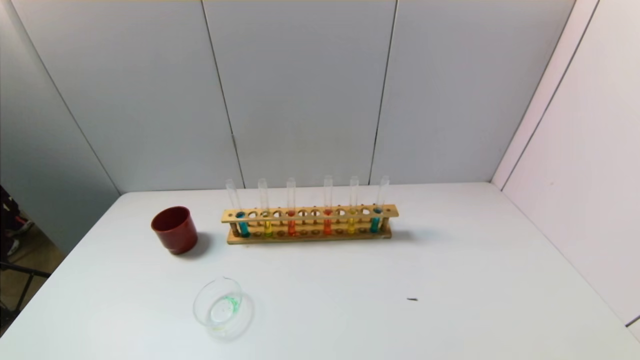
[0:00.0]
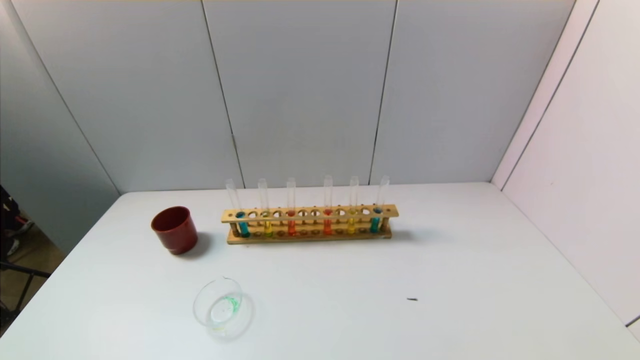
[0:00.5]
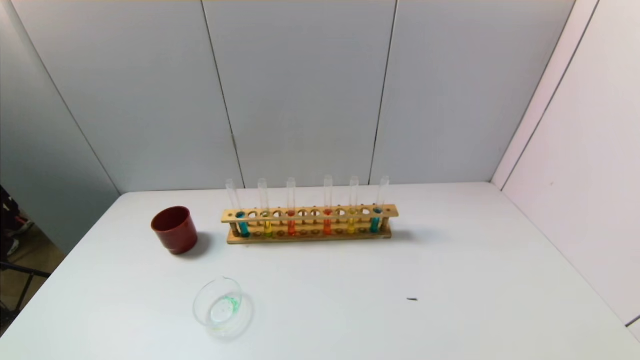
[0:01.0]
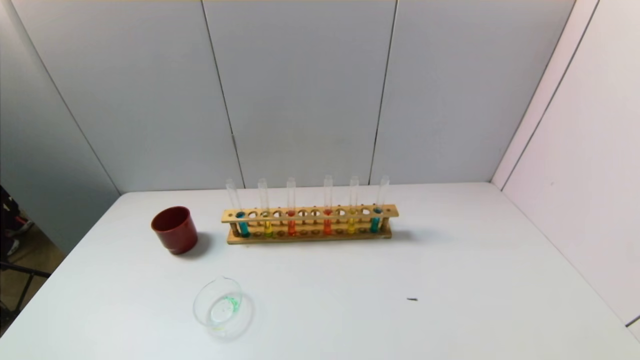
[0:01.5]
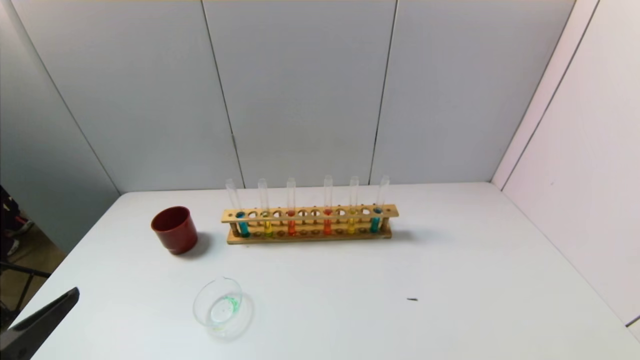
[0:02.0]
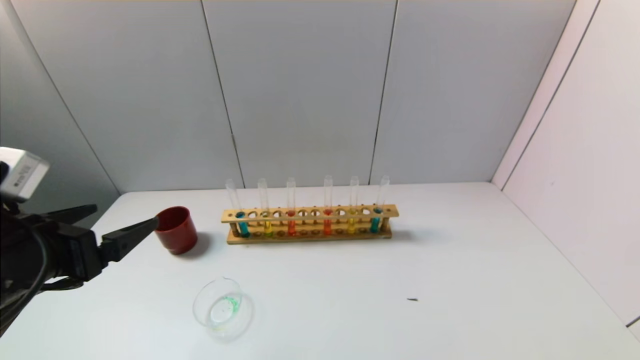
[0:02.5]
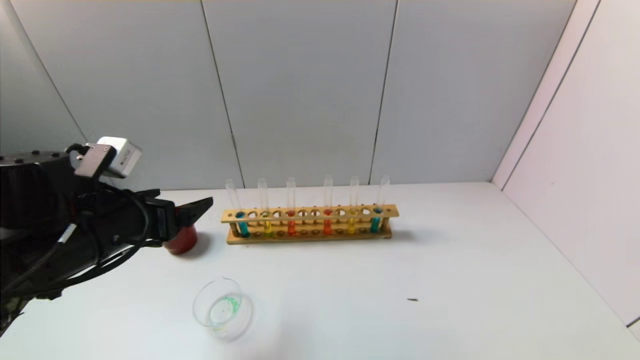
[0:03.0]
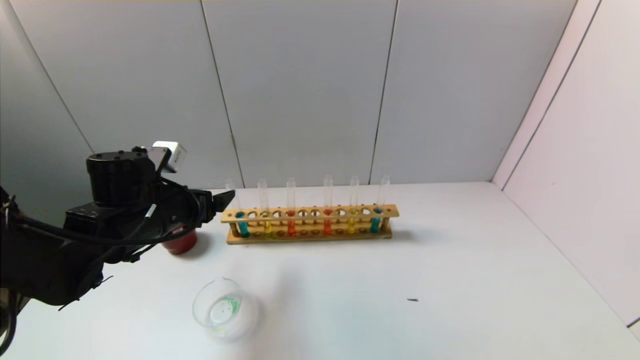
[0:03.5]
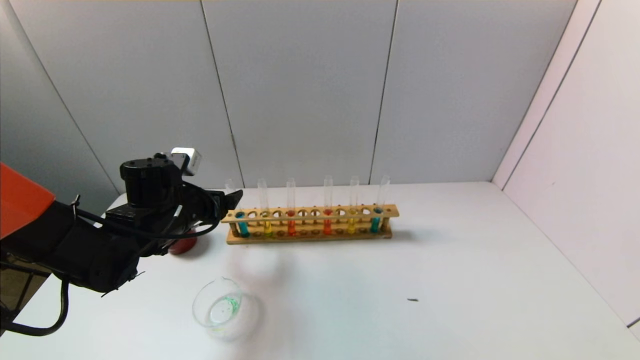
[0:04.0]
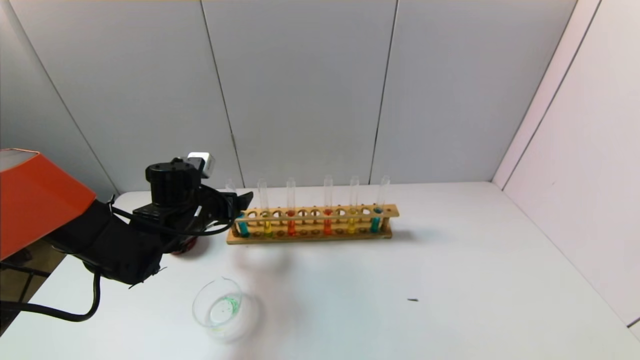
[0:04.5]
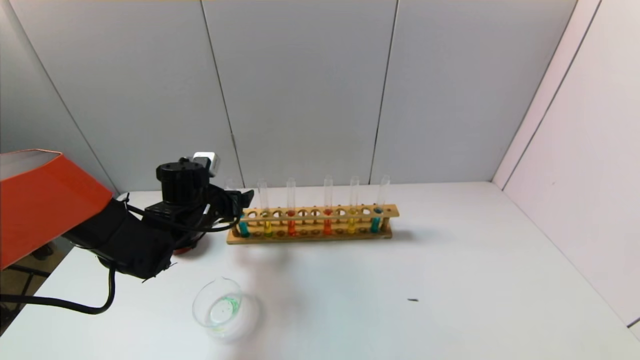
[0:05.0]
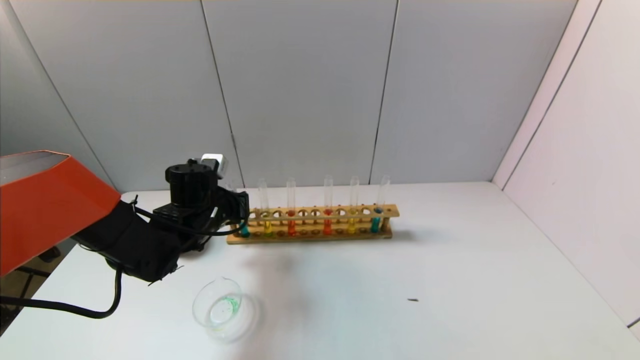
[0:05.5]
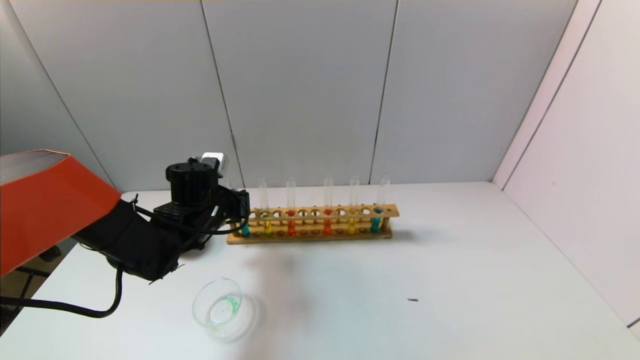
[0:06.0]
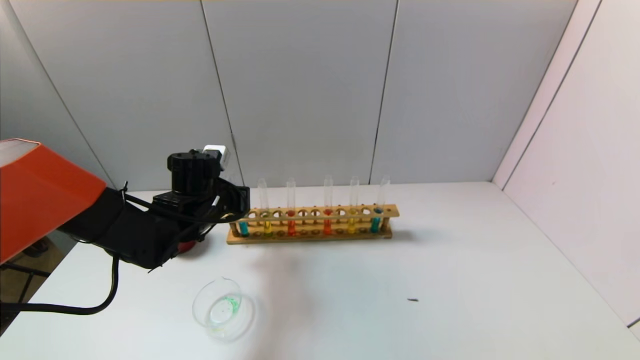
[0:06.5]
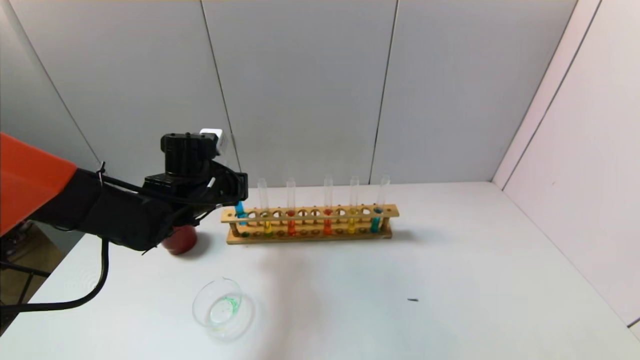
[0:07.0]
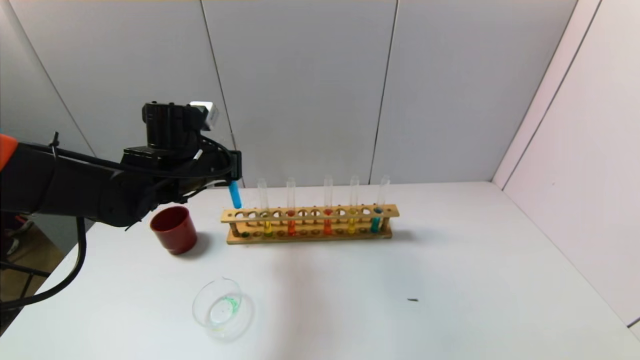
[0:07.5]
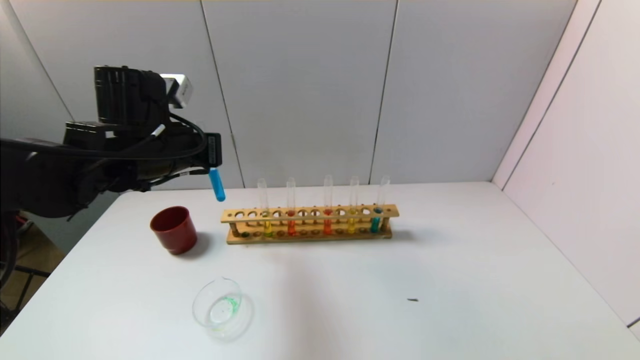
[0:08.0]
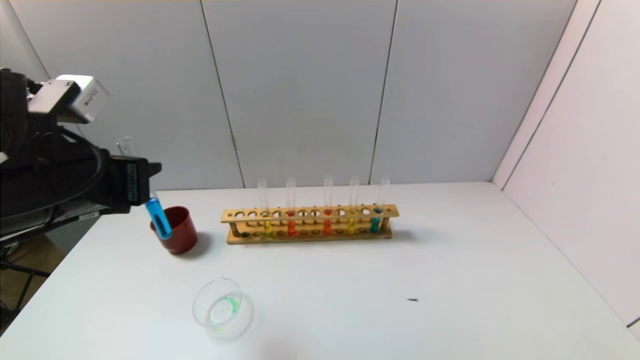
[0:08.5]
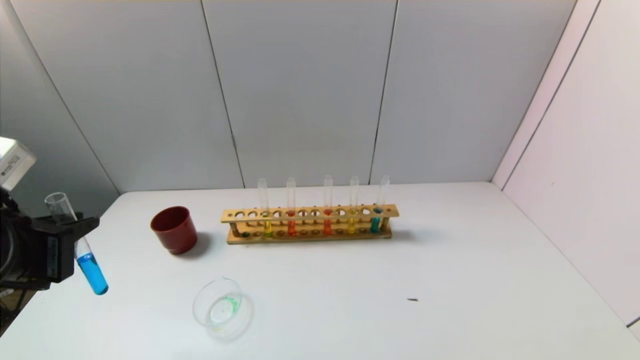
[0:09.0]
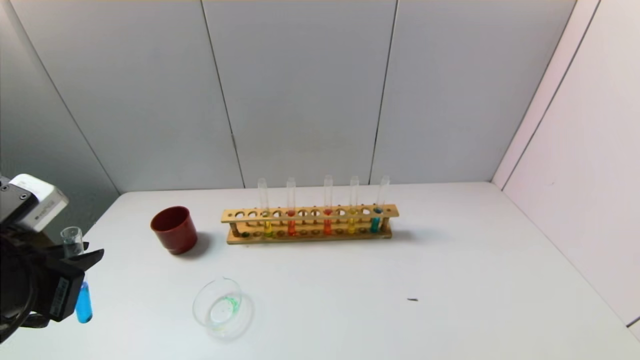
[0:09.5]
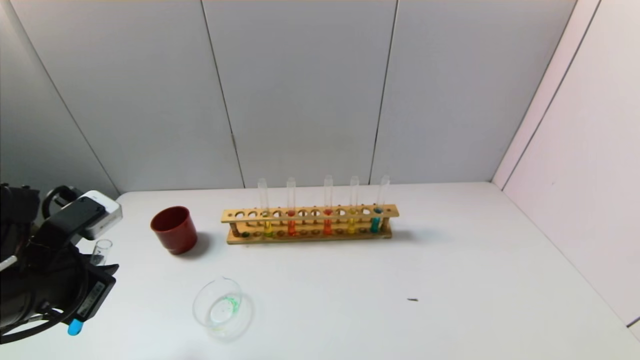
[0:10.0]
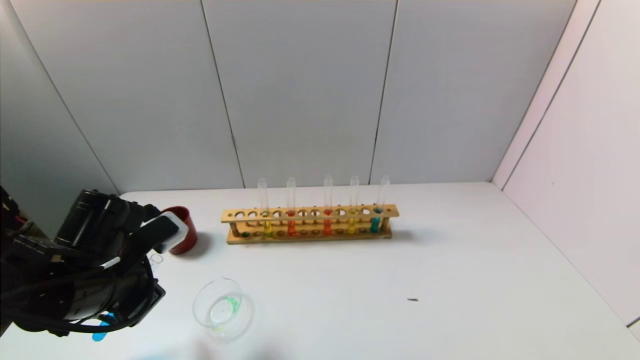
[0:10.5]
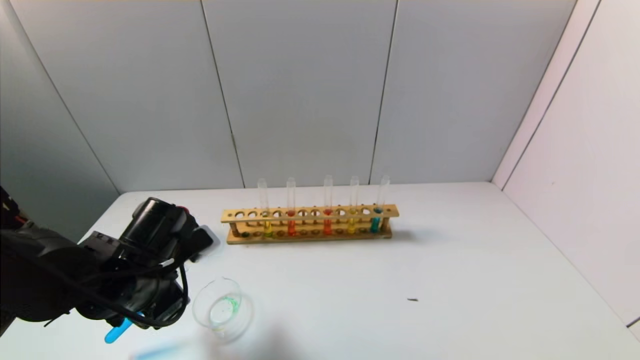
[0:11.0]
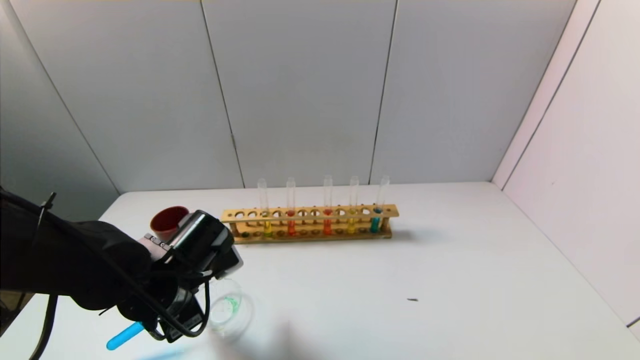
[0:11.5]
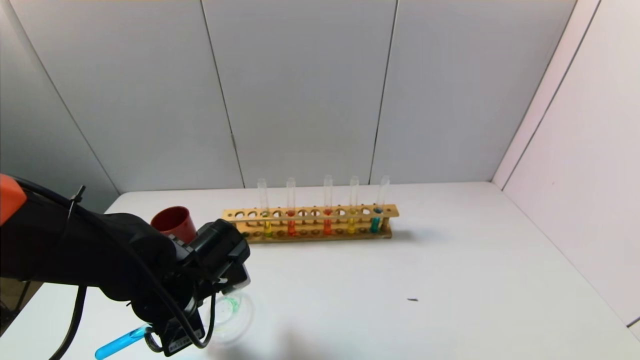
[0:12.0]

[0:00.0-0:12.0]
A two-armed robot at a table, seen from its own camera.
Task of the whole recording: pick up the test tube with yellow pigment and the test tube with blue pigment by grippers and pour them into the beaker.
Step, 0:00.0 to 0:06.0: Grasp the blue reagent with the left gripper.
0:00.0 to 0:02.0: The left gripper heads upward and forward, covering roughly 15 cm.
0:02.0 to 0:04.0: The left gripper shifts some 30 cm forward.
0:04.0 to 0:06.0: The left gripper ends up approximately 5 cm from where it was, and closes.
0:06.0 to 0:08.0: The left gripper is displaced upward by approximately 15 cm.
0:08.0 to 0:10.0: The left gripper goes roughly 15 cm backward, to the left and downward.
0:10.0 to 0:12.0: The left gripper heads to the right and downward, covering about 15 cm.

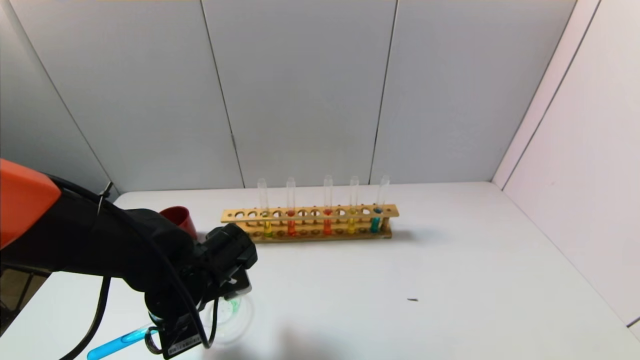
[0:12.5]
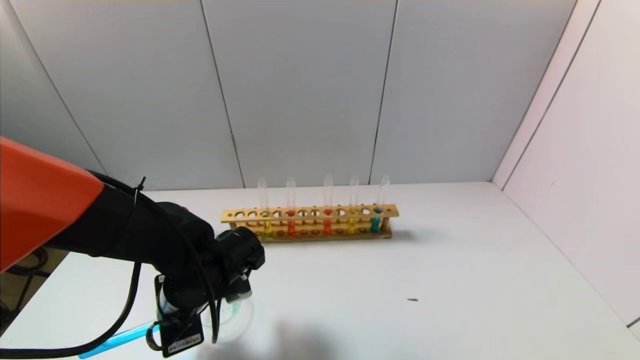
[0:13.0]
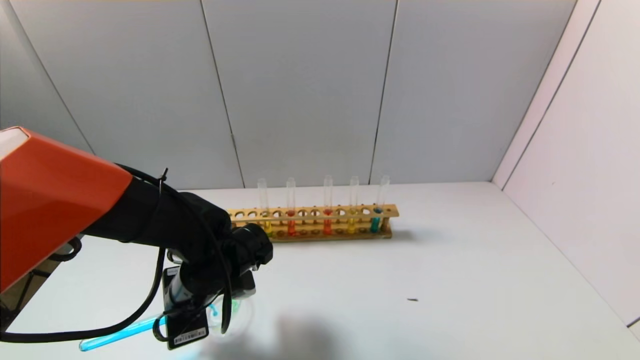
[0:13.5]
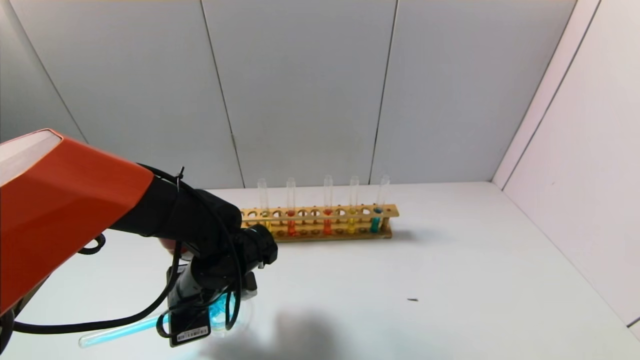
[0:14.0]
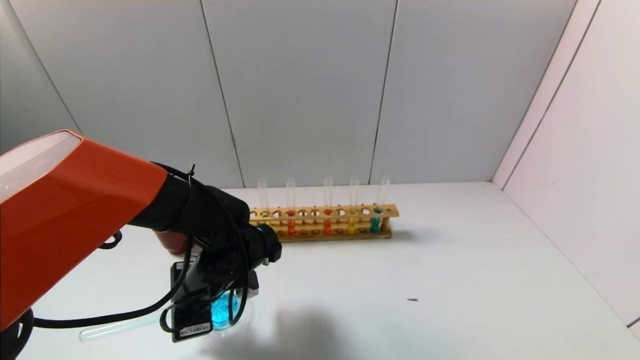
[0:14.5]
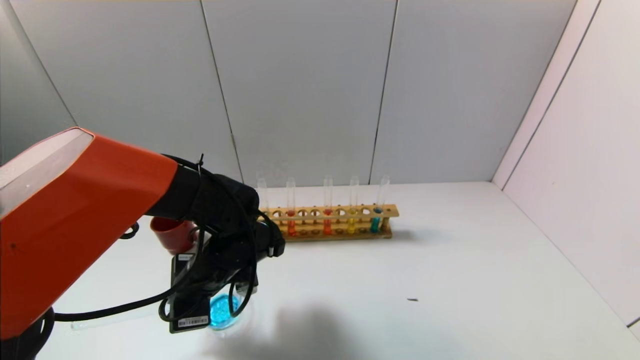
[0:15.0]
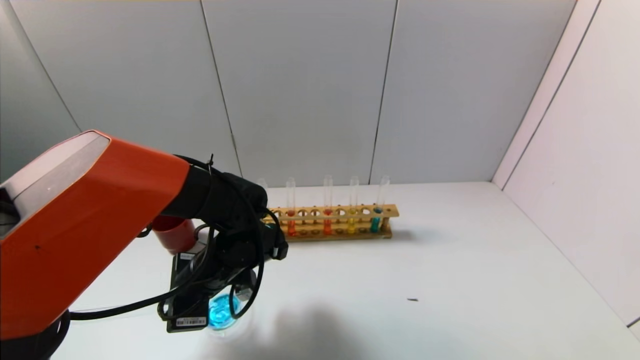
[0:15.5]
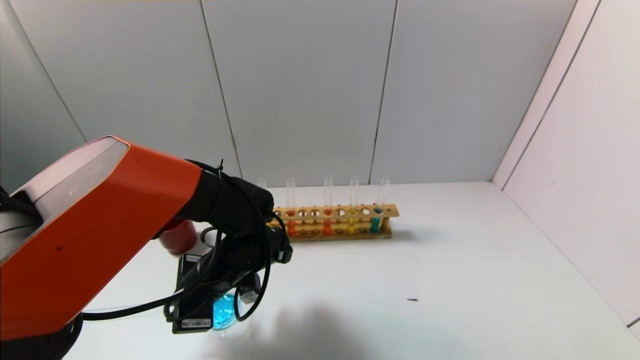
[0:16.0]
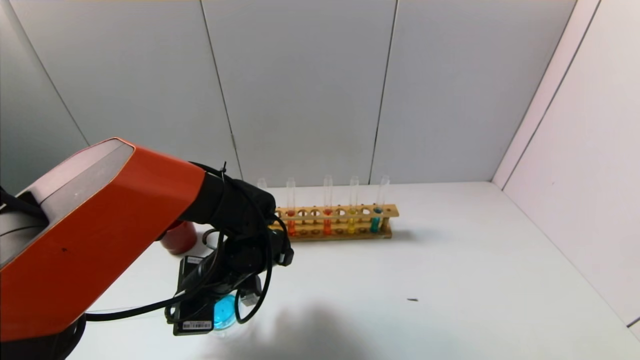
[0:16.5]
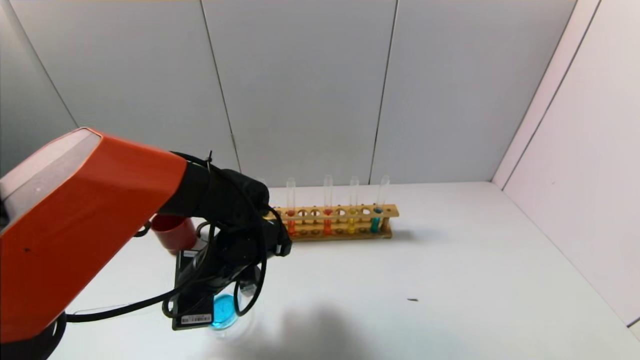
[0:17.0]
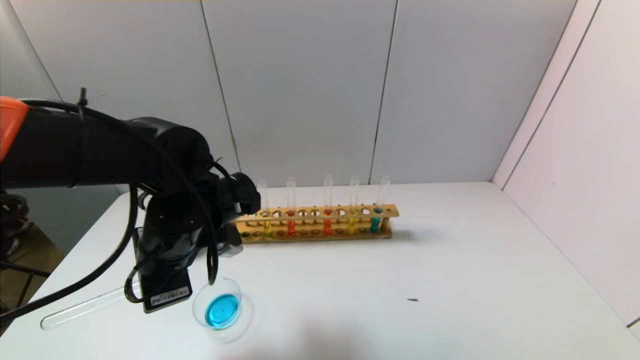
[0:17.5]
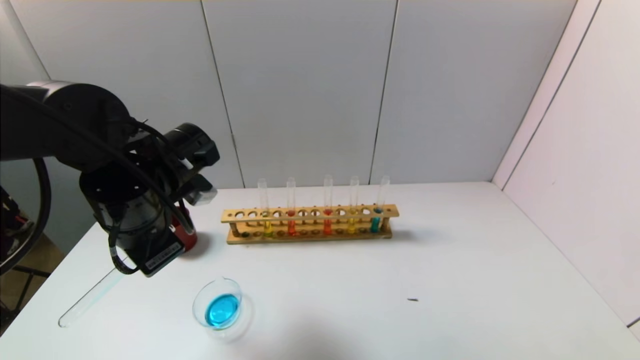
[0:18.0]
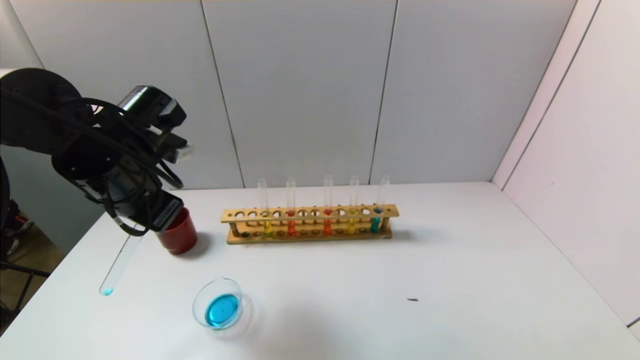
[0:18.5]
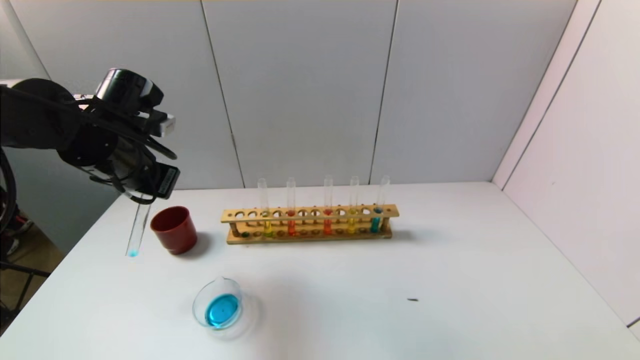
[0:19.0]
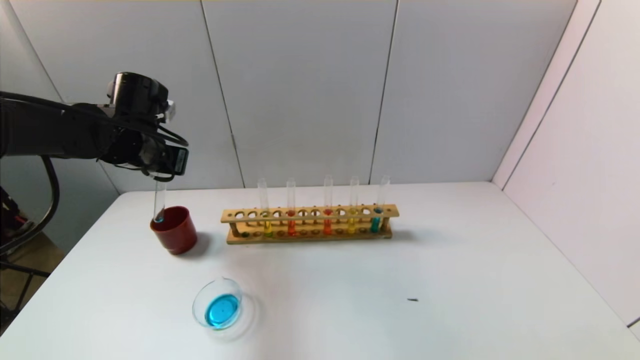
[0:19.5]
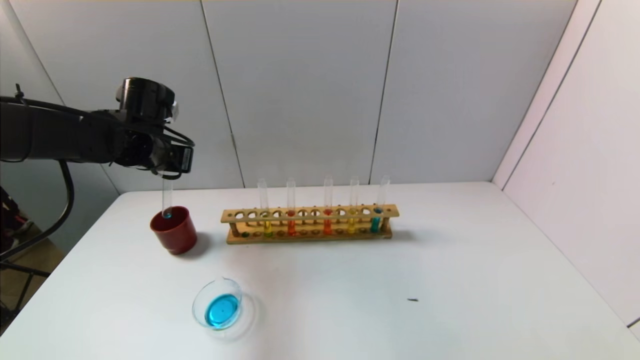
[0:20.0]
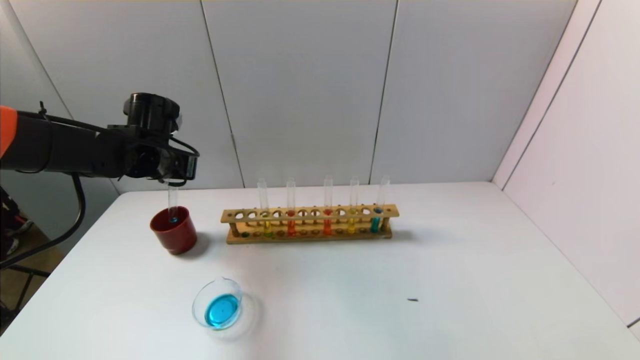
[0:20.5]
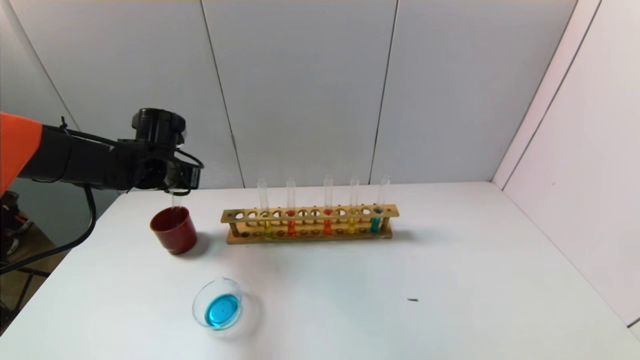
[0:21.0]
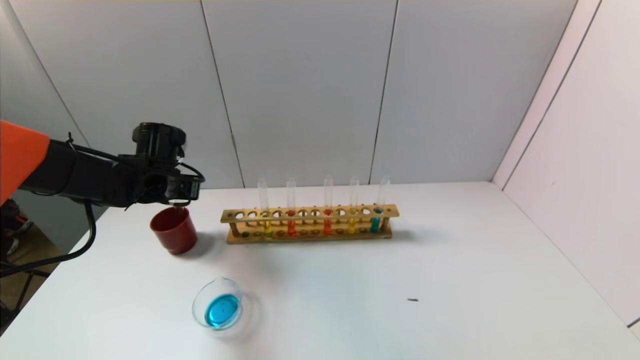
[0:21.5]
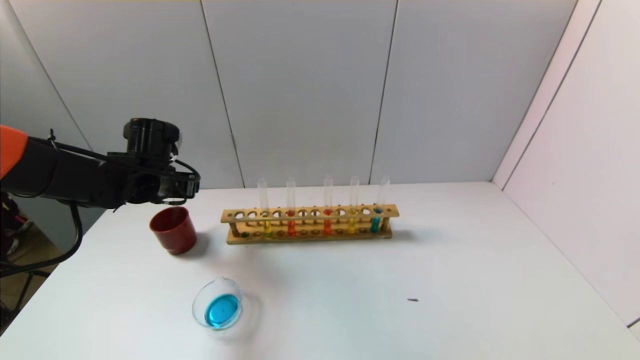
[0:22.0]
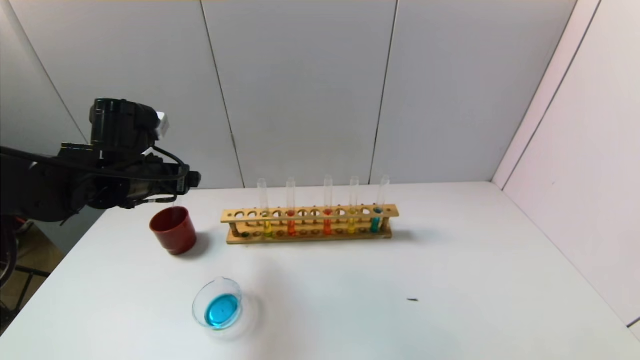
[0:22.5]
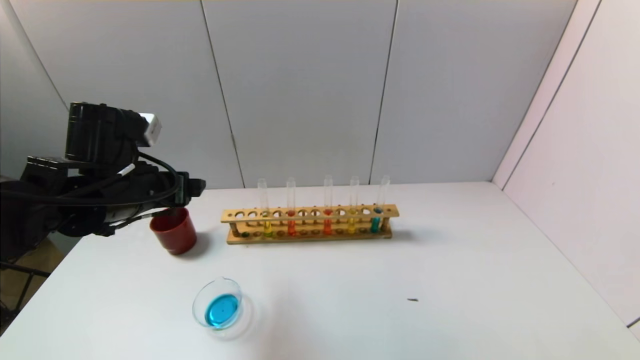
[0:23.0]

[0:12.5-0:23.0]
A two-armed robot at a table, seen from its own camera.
Task of the whole recording: pick up the test tube with yellow pigment and the test tube with blue pigment by grippers and pour them into the beaker.
Step, 0:12.5 to 0:17.0: Pour the blue reagent into the graduated cylinder with the left gripper.
Step, 0:17.5 to 0:21.5: Place the test tube into the brown cup with the left gripper.
0:12.5 to 0:14.5: The grippers stay close to where they were, moving slightly.
0:14.5 to 0:16.5: The grippers stay close to where they were, moving slightly.
0:16.5 to 0:19.0: The left gripper moves upward and to the left, about 20 cm.
0:19.0 to 0:21.0: The left gripper shifts some 10 cm forward and downward.
0:21.0 to 0:23.0: The left gripper heads backward, covering about 15 cm, and opens.
